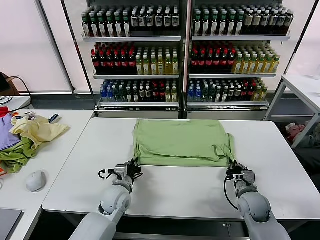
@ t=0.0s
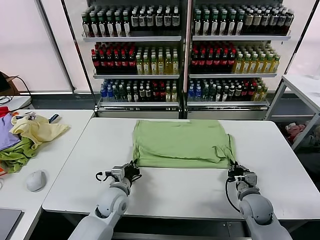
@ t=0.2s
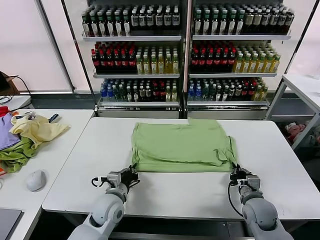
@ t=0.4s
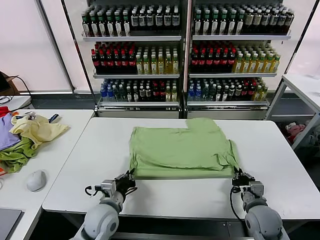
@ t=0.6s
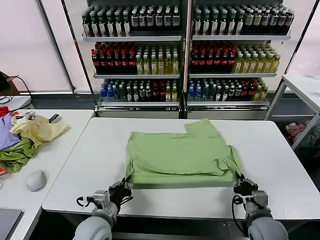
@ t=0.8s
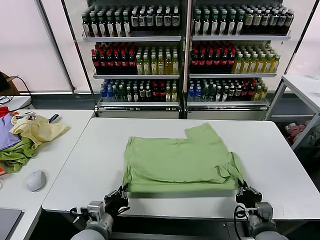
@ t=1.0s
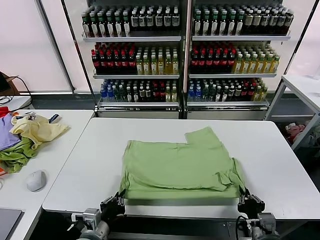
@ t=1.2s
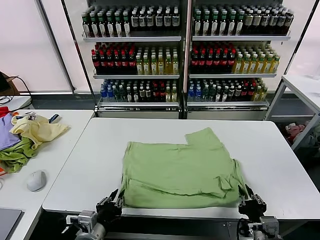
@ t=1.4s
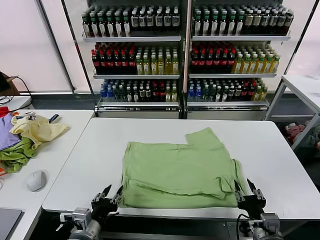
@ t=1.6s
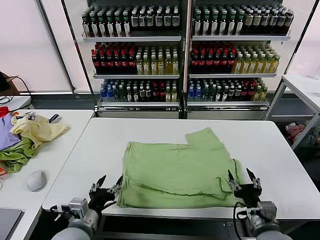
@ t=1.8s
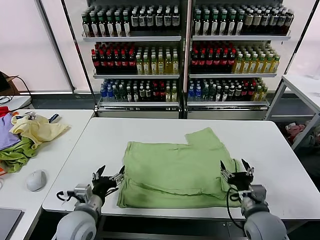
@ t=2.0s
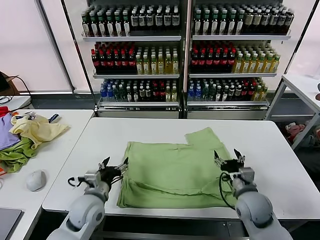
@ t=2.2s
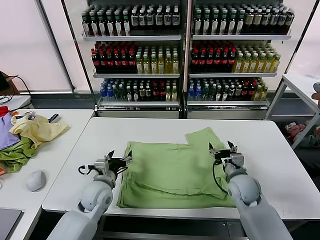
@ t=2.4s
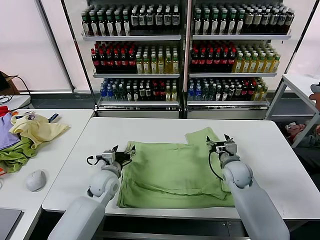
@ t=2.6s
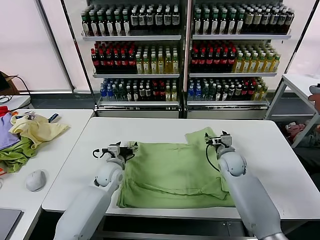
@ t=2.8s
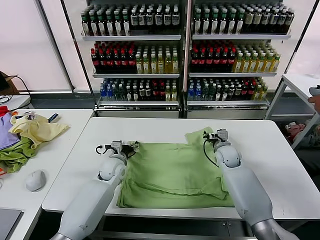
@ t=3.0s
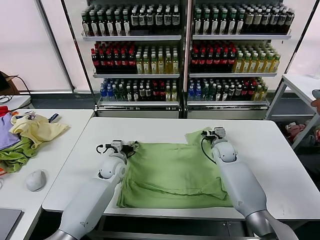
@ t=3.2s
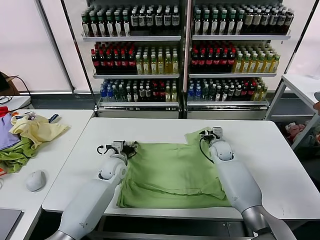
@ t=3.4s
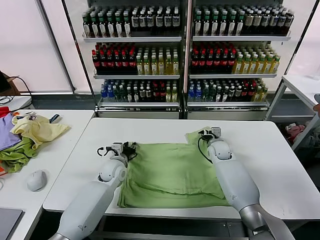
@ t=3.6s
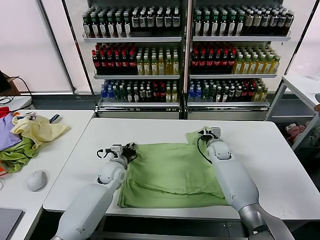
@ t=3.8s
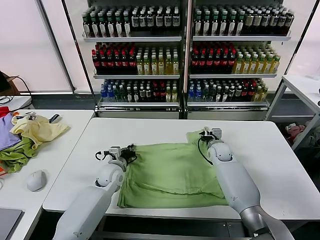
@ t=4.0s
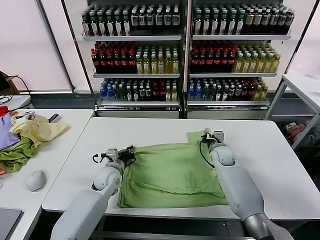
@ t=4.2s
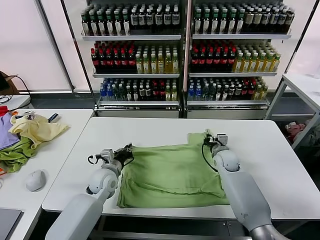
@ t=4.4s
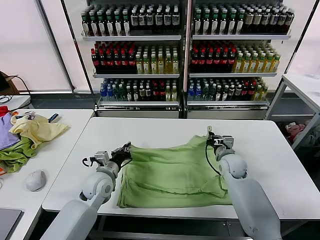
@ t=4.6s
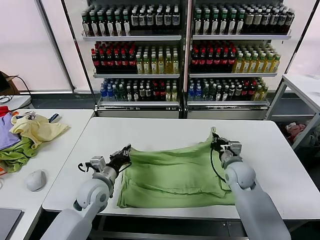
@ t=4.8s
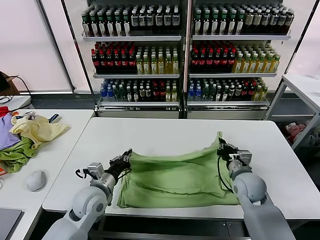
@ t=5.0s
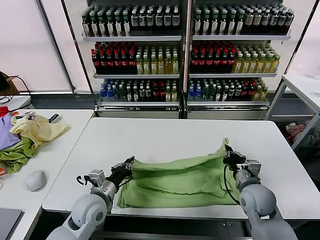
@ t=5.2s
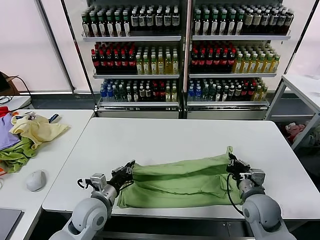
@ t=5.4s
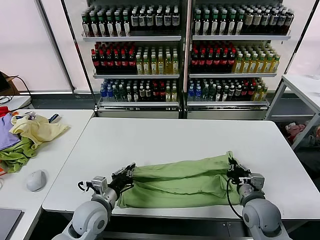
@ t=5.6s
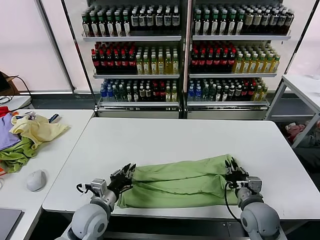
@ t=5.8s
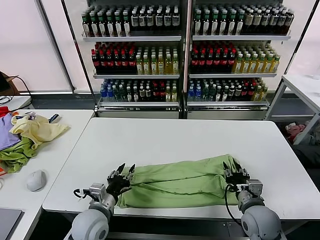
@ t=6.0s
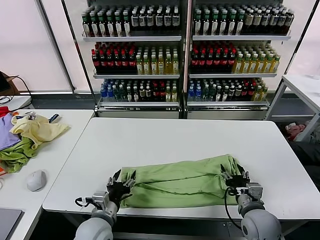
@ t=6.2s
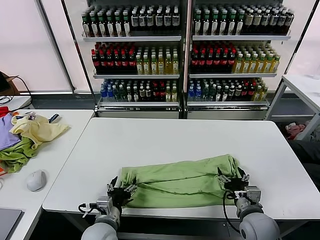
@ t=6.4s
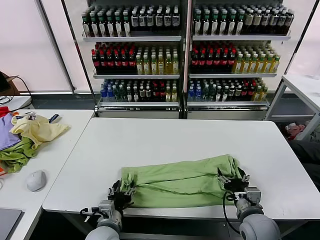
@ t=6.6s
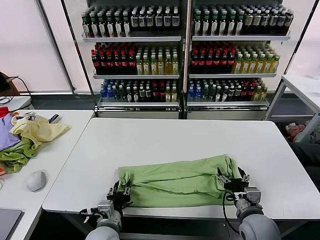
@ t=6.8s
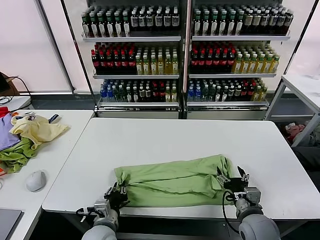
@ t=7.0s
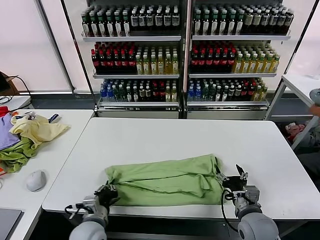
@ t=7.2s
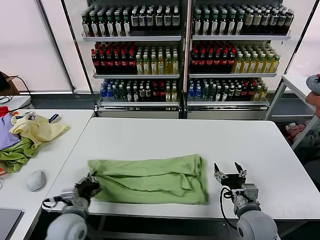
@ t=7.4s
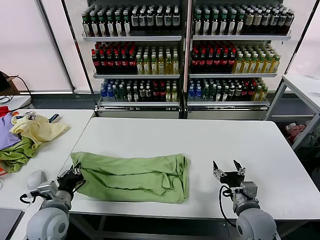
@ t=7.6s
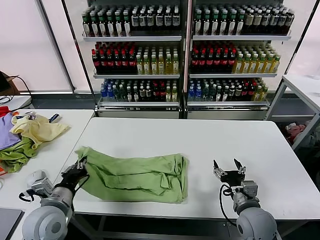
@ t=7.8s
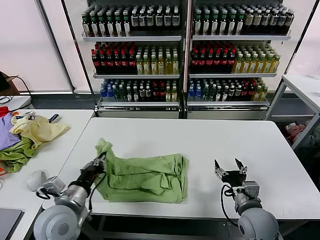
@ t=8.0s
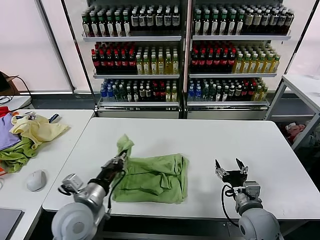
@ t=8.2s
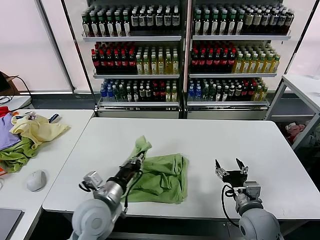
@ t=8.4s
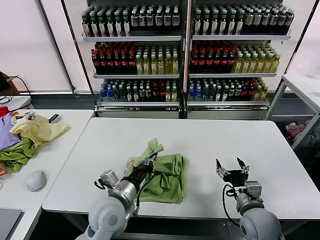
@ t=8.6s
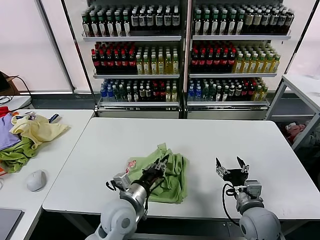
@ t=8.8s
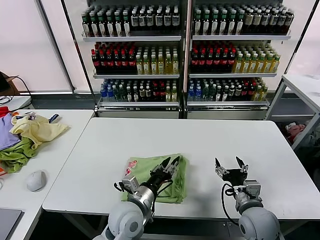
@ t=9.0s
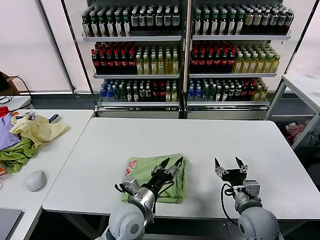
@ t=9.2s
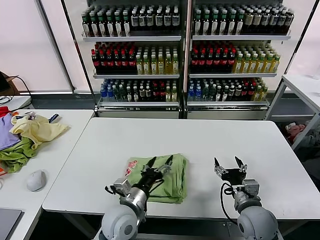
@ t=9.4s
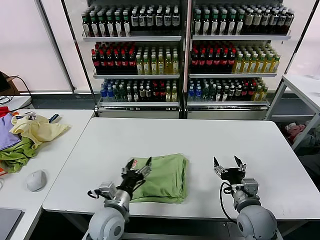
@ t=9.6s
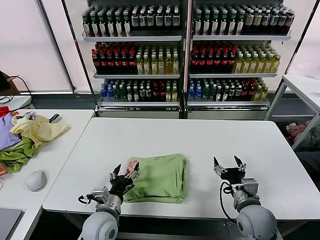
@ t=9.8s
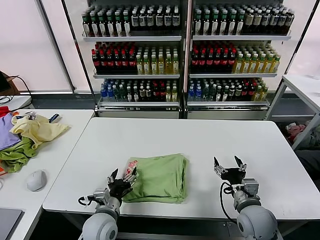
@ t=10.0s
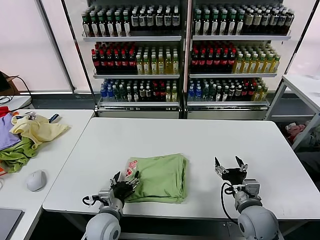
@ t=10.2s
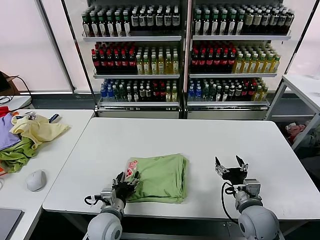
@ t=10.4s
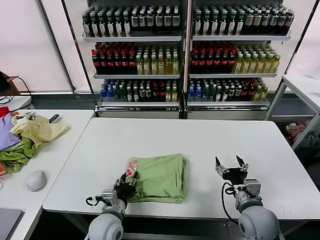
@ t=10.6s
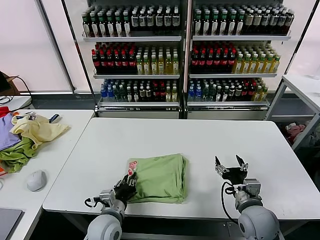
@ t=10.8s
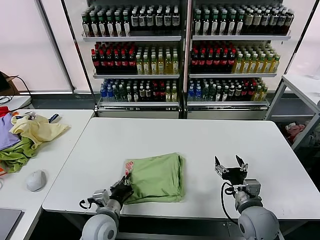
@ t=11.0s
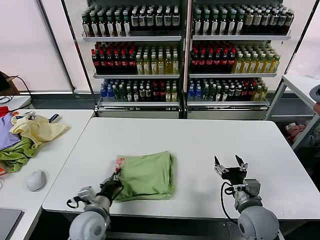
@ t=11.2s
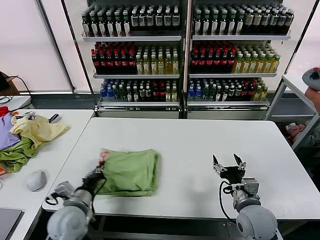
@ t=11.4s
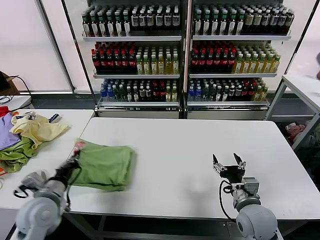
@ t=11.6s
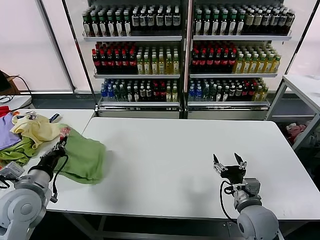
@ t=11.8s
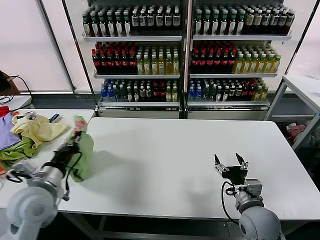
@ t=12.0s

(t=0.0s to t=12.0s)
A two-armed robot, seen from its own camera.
Task of the whole recording: fold and organize the clothes.
Step, t=0.0s - t=1.4s: Drag the clothes downward with both gripper.
Step, t=1.6s - t=4.0s: use both grippers simultaneously to clamp the upper edge of the clothing fabric.
Step, t=4.2s - t=6.0s: use both grippers to drag the upper edge of the fabric backward and fold it over the lower edge.
Step, t=6.2s - t=7.0s: use the left gripper to clamp the left edge of the fabric.
Step, t=7.2s - t=9.0s: use the left gripper to drag the left edge of the fabric to the left and folds it over the right edge.
t=0.0s - t=1.6s: The left gripper heads backward, covering roughly 20 cm, and opens its fingers. The right gripper travels backward and upward by roughly 20 cm, and opens.
t=1.6s - t=3.0s: Both grippers move forward, approximately 30 cm. The left gripper opens.
t=3.0s - t=4.4s: The left gripper travels backward by roughly 5 cm, and closes its fingers, while the right gripper closes up.
t=4.4s - t=6.0s: Both grippers move backward, some 20 cm. The right gripper opens up; the left gripper opens its fingers.
t=6.0s - t=7.6s: The left gripper travels to the left by some 10 cm, and closes, while the right gripper opens its fingers.
t=7.6s - t=9.0s: The left gripper heads to the right, covering about 20 cm, and opens up.
t=9.0s - t=10.4s: The left gripper goes about 10 cm to the left and downward, and opens.
t=10.4s - t=12.0s: The left gripper travels upward and to the left by some 20 cm, and closes.

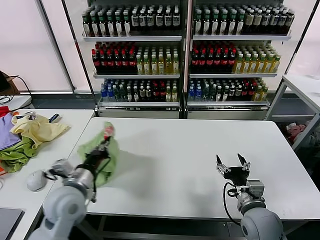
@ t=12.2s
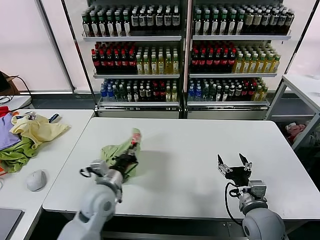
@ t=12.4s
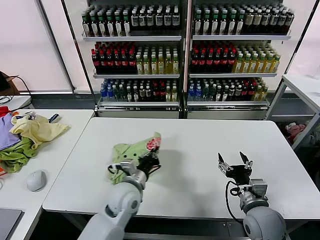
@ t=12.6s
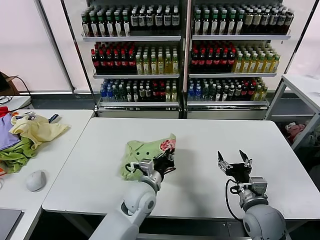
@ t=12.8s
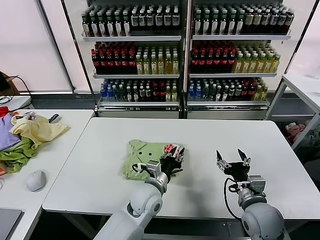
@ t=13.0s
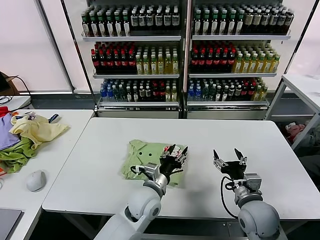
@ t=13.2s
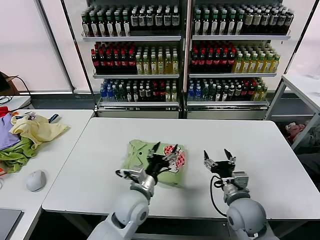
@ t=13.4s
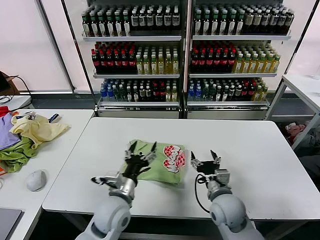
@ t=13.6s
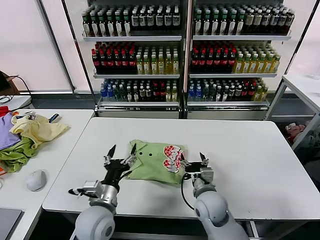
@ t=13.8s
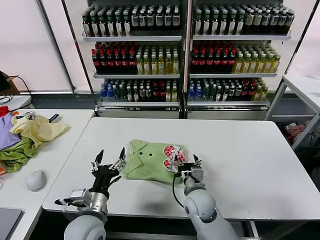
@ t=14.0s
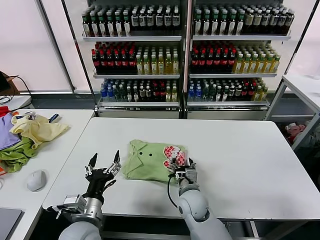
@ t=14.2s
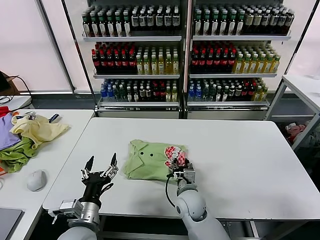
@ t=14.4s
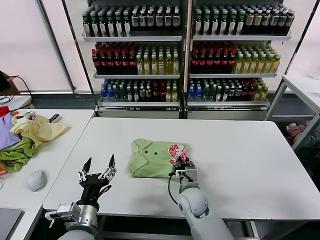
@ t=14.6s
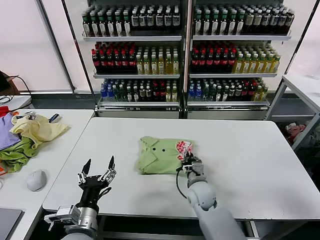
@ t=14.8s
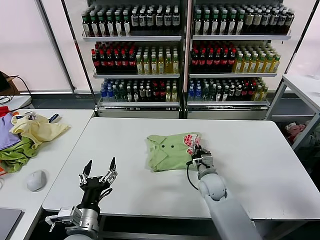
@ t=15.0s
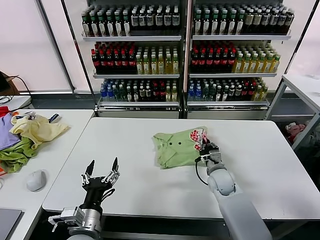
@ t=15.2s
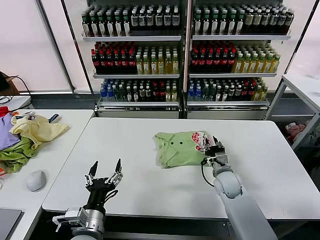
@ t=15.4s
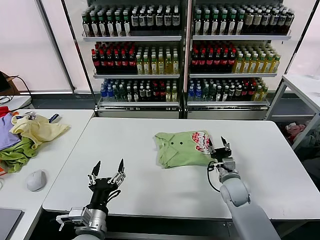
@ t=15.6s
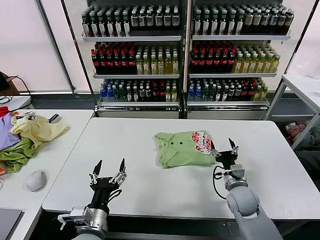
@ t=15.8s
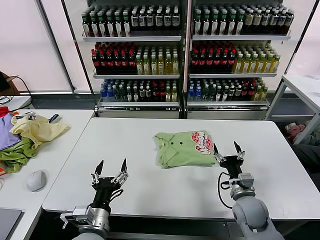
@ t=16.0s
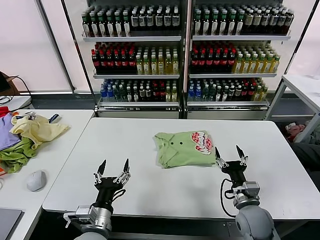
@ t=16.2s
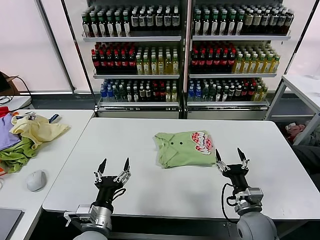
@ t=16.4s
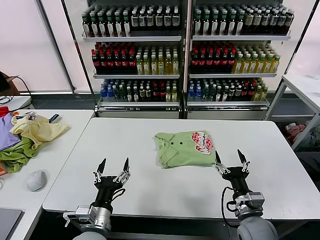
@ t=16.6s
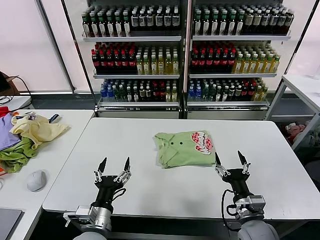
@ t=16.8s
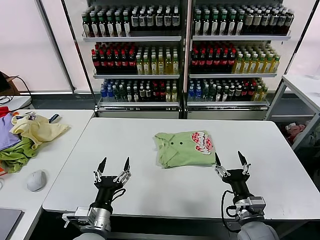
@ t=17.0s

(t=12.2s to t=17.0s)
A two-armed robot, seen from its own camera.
Task of the whole recording: fold and organize the clothes.
Step, t=13.2s - t=15.4s: Drag the clothes to the center of the table.
t=12.2s - t=13.8s: The right gripper goes about 15 cm to the left and forward. The left gripper heads to the right and downward, covering roughly 10 cm, and opens.
t=13.8s - t=15.4s: The left gripper goes about 10 cm backward. The right gripper goes some 15 cm forward and to the right, and closes.
t=15.4s - t=17.0s: The right gripper shifts about 20 cm backward, and opens.
